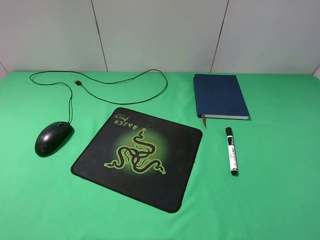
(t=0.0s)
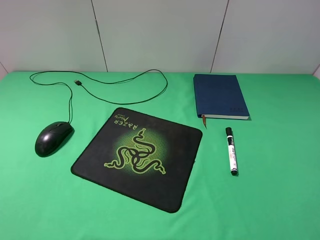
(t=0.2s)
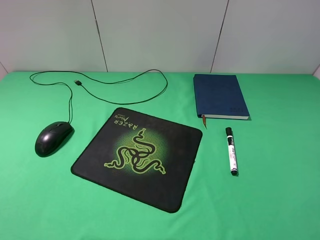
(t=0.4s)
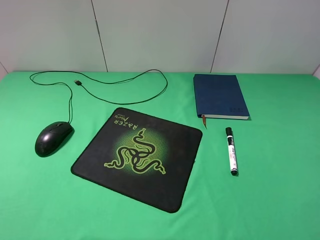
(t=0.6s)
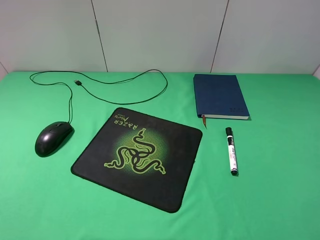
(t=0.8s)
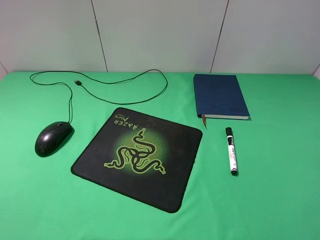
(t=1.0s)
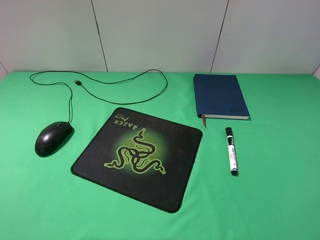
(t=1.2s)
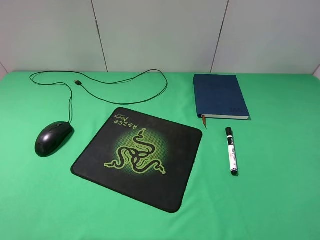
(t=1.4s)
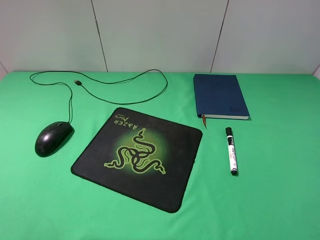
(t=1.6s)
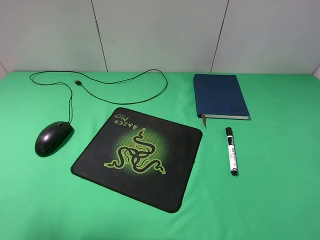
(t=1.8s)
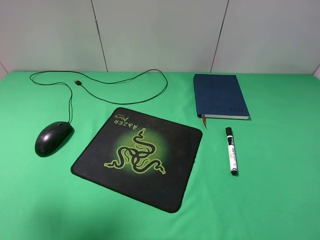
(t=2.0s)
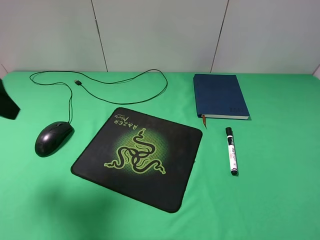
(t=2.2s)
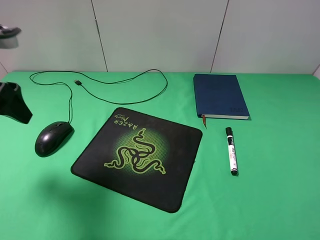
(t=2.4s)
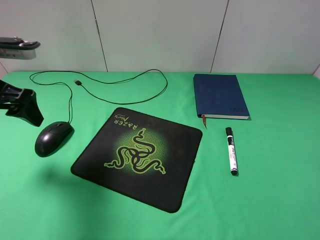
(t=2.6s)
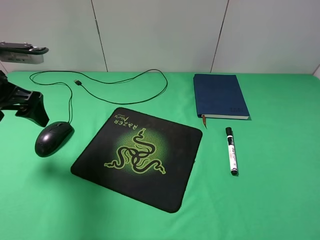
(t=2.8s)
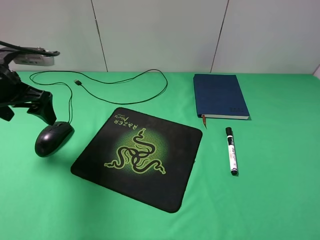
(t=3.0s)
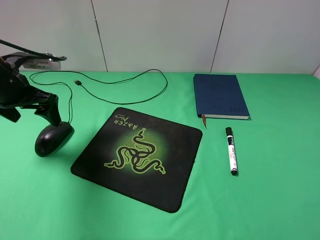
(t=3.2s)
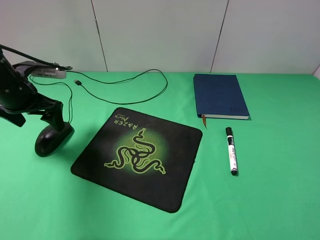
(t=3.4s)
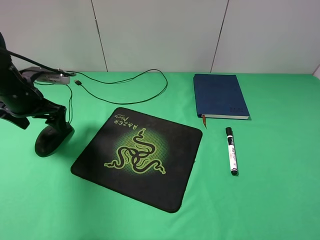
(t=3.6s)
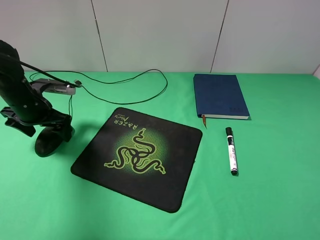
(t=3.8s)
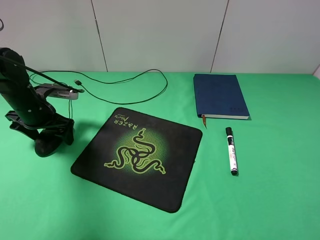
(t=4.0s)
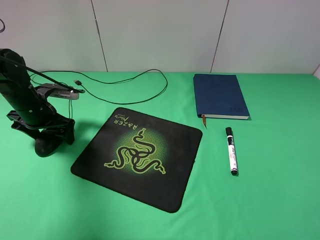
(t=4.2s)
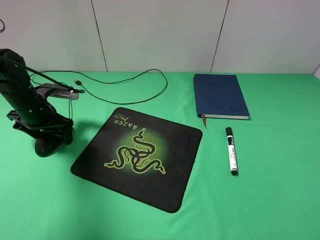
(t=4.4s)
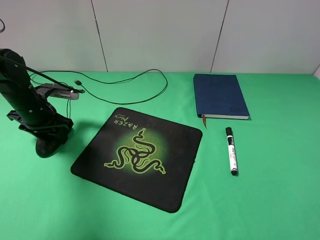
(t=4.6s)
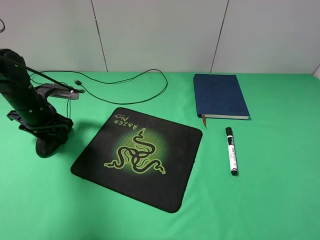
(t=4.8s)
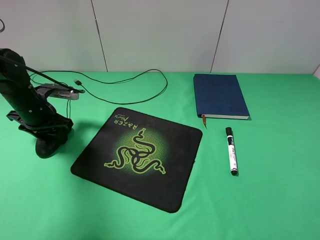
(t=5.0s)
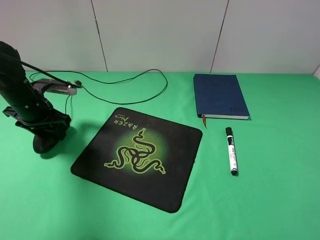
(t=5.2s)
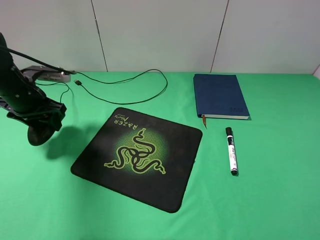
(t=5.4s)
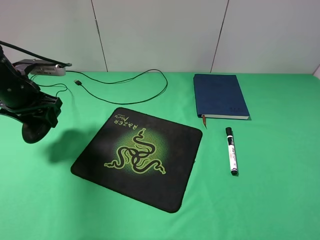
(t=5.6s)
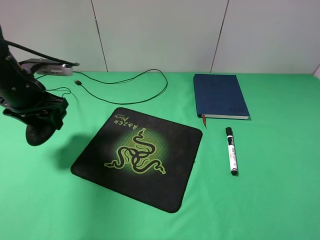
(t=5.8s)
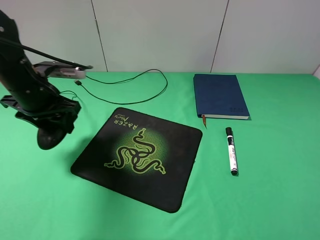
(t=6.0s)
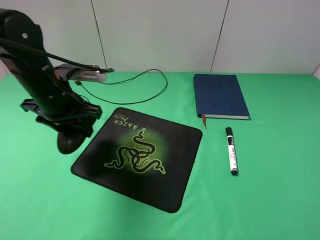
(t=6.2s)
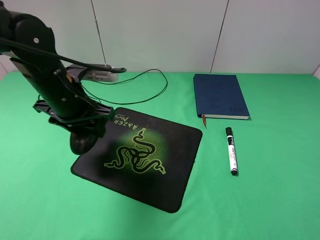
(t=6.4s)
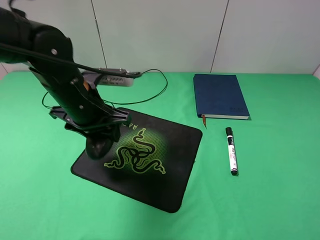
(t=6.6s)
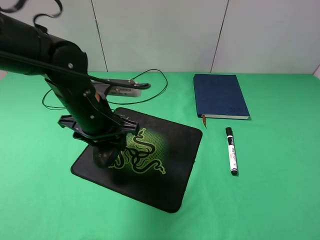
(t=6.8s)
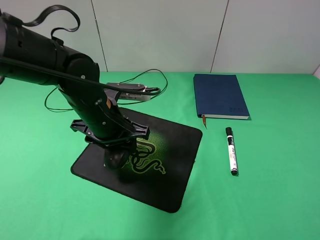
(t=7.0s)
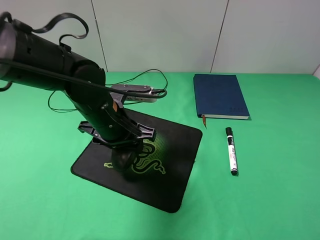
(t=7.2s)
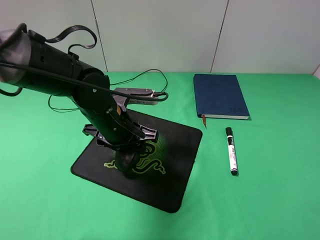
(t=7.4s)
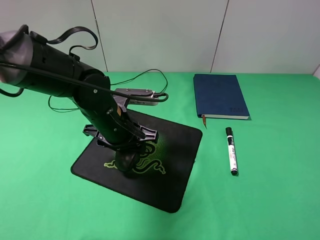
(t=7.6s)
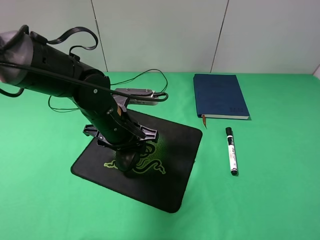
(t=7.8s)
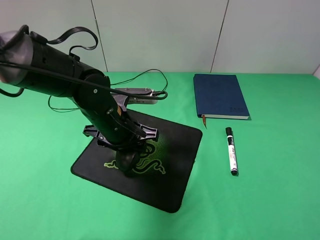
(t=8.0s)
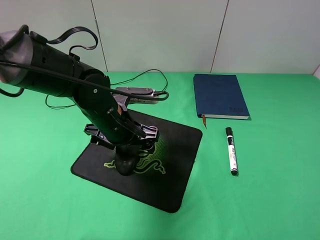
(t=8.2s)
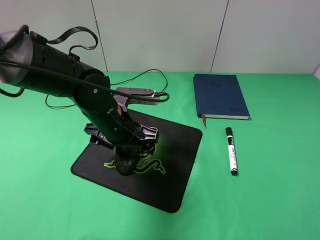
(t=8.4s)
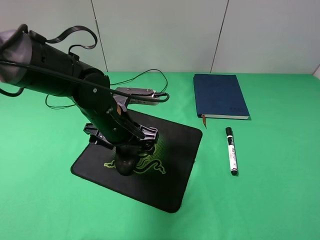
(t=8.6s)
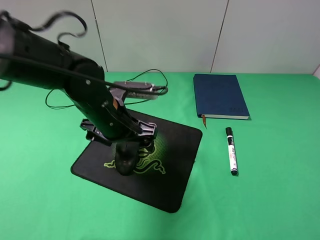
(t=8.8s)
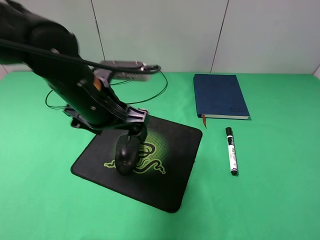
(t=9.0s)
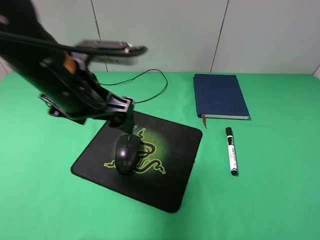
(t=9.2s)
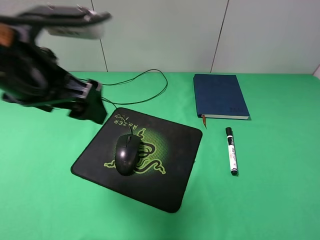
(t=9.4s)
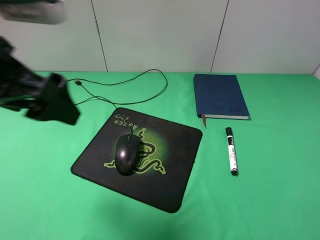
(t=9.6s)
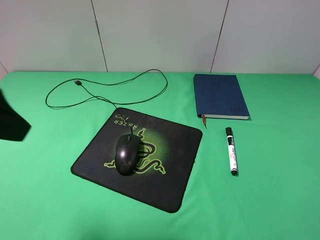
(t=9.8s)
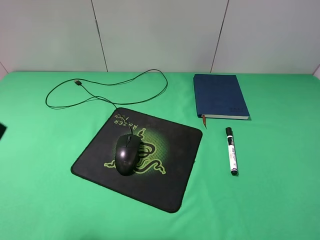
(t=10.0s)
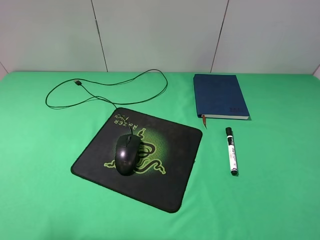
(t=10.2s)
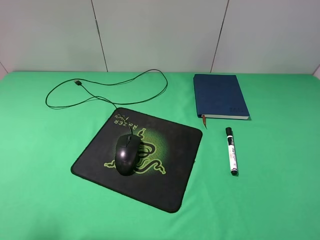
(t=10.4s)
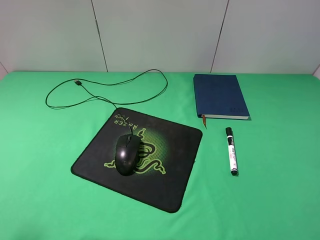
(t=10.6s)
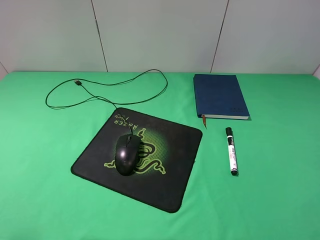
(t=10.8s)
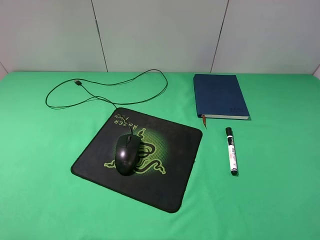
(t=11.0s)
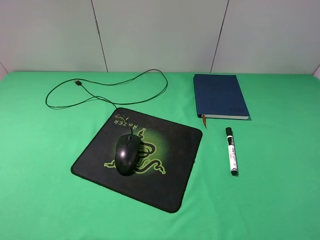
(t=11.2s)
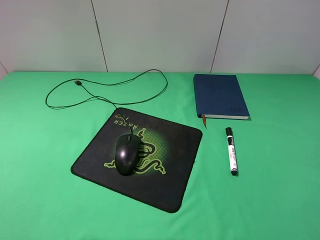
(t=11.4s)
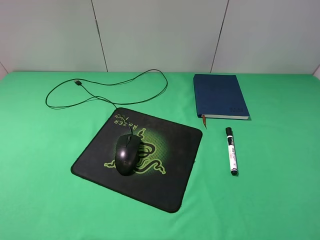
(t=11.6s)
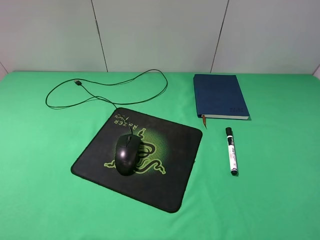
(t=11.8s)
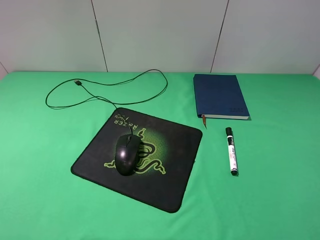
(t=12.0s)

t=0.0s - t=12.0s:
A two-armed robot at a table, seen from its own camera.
Step, t=0.0s - t=4.8s: Grasp the mouse with the left gripper.
Step, t=5.0s - t=8.6s: Place the mouse on the mouse pad with the left gripper.
t=1.6s - t=3.0s: The left gripper is displaced forward and downward by approximately 25 cm.
t=3.0s - t=4.4s: The left gripper shifts about 10 cm downward, and closes up.
t=4.4s - t=6.0s: The left gripper goes about 10 cm upward and to the right, and closes up.
t=6.0s - t=7.6s: The left gripper shifts about 15 cm to the right.
t=7.6s - t=9.0s: The left gripper goes some 10 cm upward, and opens up.
t=9.0s - t=10.4s: The left gripper is displaced to the left, backward and upward by approximately 25 cm.

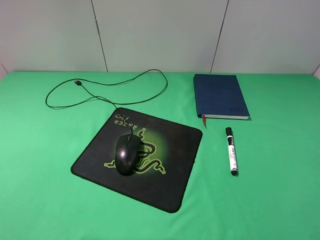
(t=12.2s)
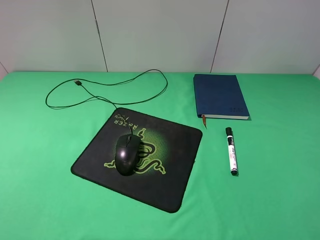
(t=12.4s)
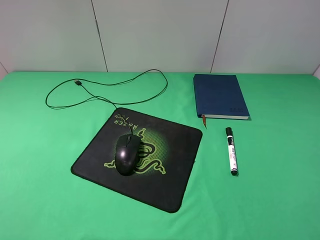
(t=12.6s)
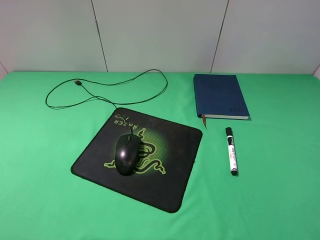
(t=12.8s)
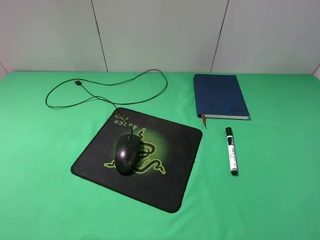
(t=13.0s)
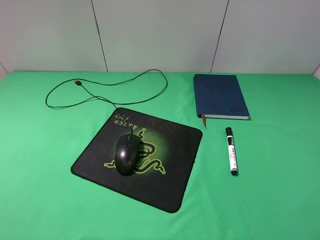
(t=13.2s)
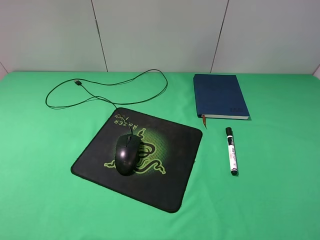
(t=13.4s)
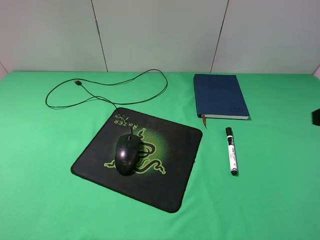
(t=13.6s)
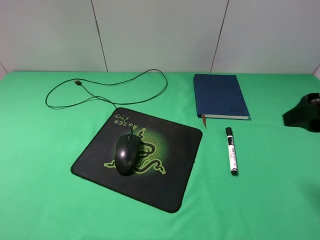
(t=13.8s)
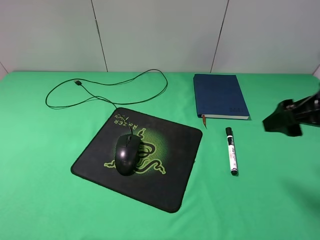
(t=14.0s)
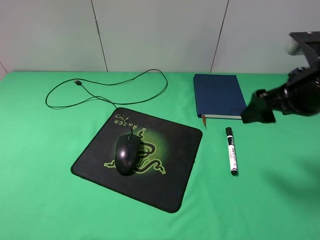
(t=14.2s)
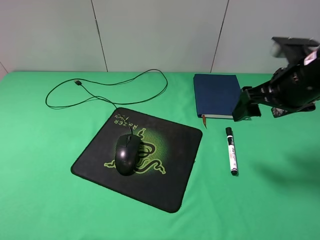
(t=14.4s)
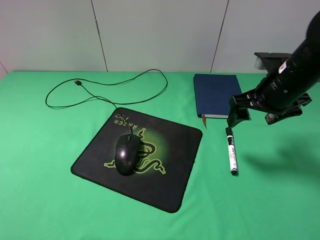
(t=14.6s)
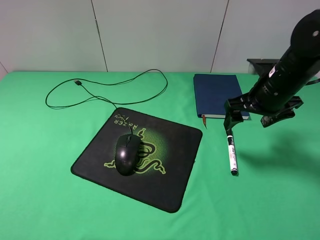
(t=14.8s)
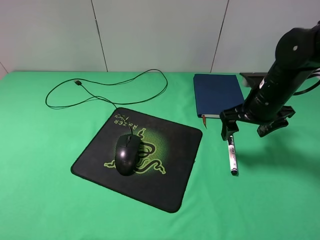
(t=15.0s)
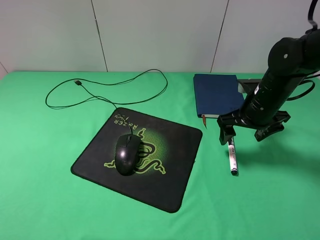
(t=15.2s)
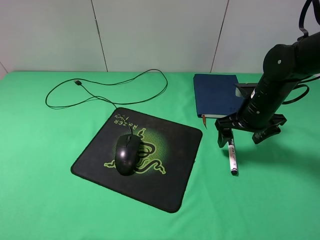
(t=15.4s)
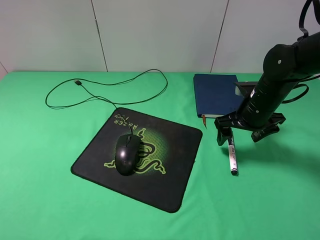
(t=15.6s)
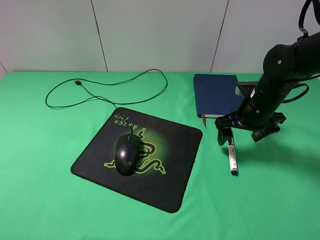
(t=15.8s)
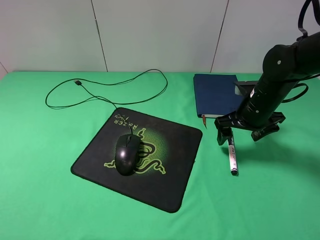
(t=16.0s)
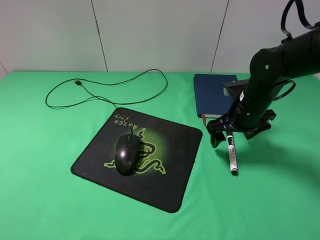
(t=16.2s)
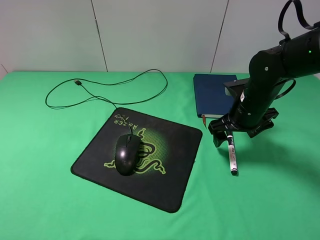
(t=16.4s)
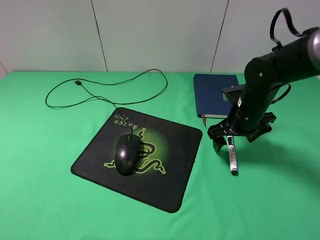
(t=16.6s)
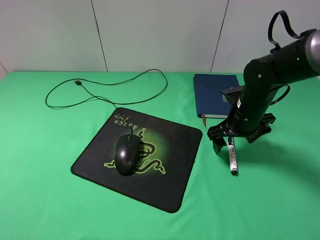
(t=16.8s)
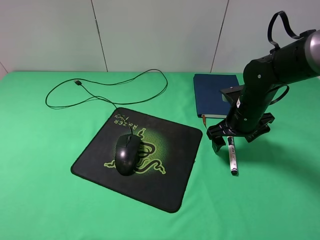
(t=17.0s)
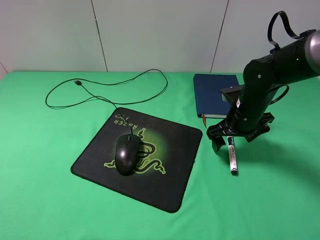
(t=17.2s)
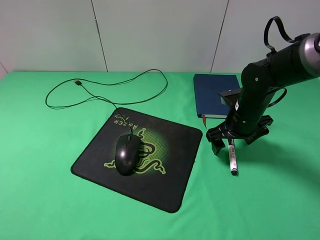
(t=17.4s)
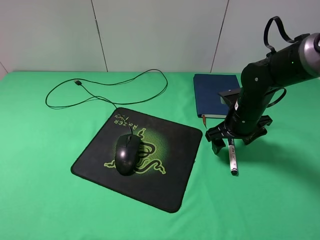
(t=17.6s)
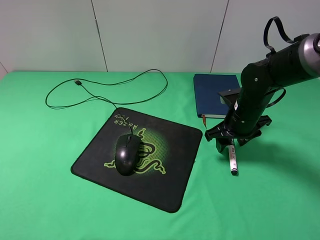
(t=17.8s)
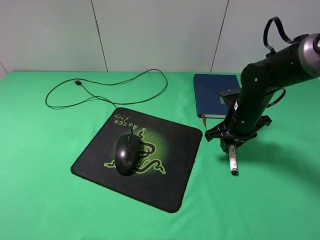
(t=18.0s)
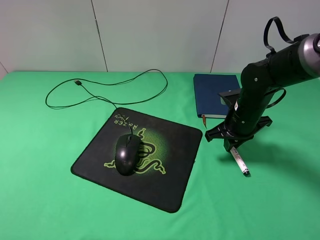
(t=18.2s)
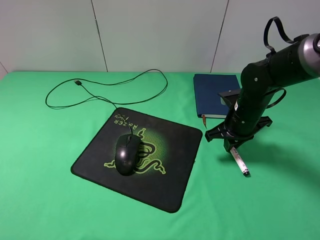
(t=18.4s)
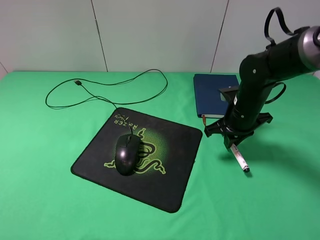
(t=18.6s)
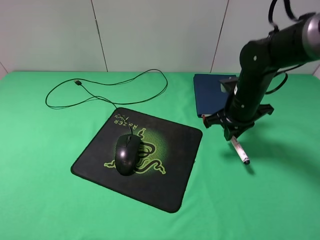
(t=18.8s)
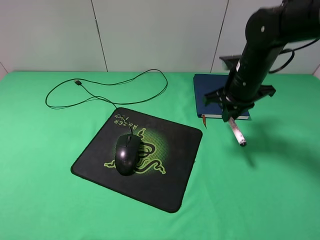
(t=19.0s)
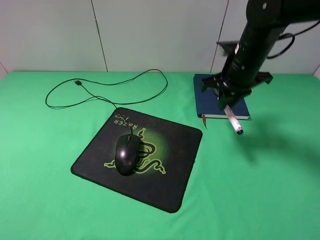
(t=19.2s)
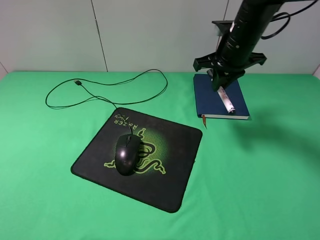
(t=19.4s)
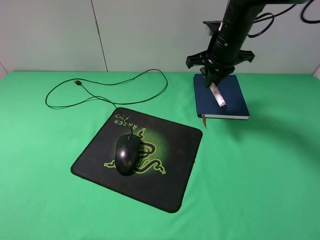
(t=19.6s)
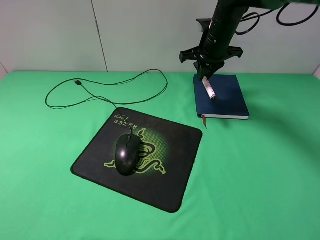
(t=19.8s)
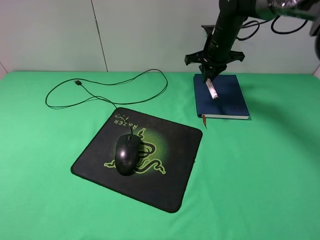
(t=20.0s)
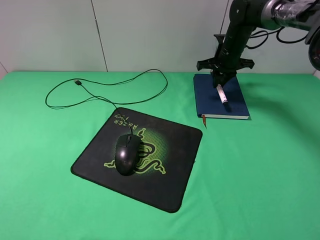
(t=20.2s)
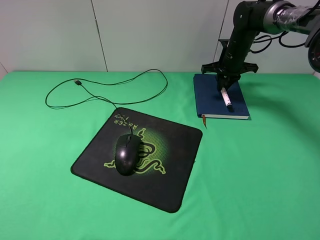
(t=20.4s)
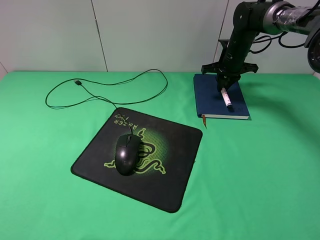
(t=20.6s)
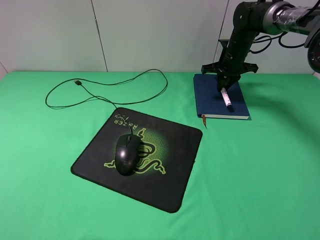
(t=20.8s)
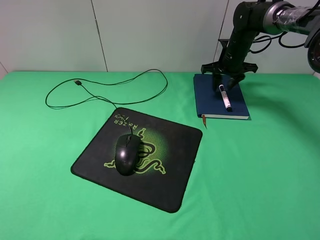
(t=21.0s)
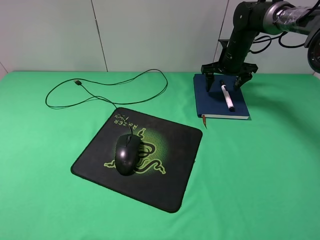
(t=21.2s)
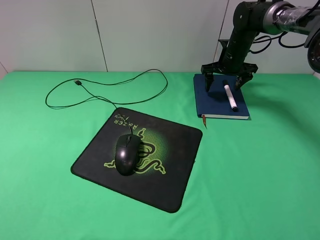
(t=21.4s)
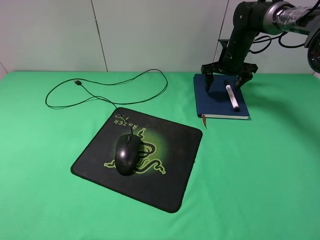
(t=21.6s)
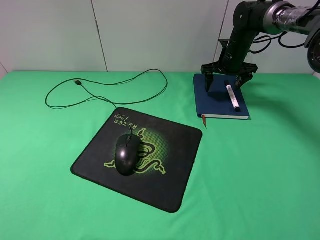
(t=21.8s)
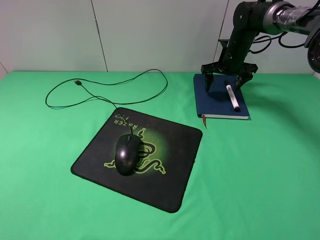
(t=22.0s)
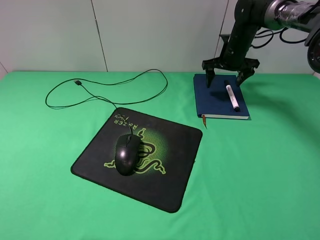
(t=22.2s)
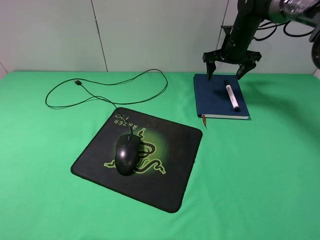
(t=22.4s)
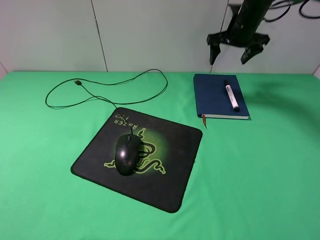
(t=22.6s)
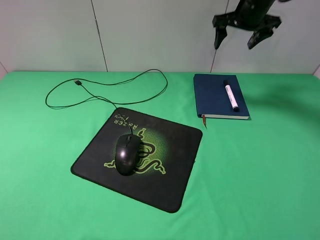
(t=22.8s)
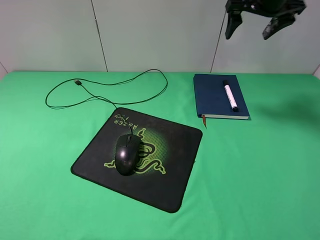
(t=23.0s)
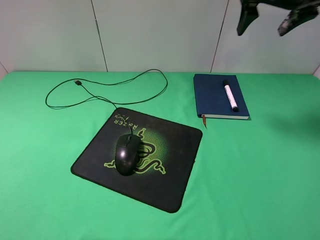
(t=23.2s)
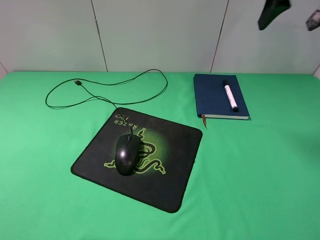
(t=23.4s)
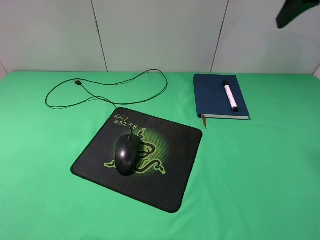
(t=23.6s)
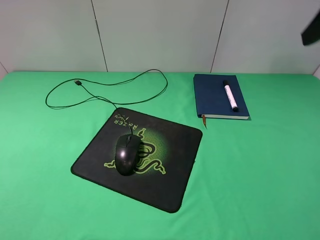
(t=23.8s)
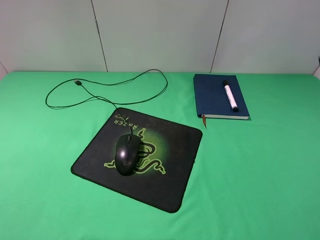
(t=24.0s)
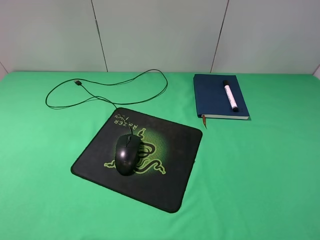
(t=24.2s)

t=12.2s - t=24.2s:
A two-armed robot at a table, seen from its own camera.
Step, t=12.2s - t=18.2s: Grasp the marker with the right gripper.
Step, t=18.4s - t=21.6s: Place the marker on the notebook with the right gripper.
t=12.2s - t=13.8s: The right gripper is displaced forward by roughly 15 cm.
t=13.8s - t=15.2s: The right gripper moves forward, downward and to the left, approximately 20 cm.
t=15.2s - t=16.6s: The grippers make only small movements.
t=16.6s - t=18.2s: The right gripper closes its fingers.
t=18.2s - t=19.8s: The right gripper shifts some 20 cm forward and upward.
t=19.8s - t=21.2s: The right gripper travels to the right, downward and forward by roughly 10 cm, and opens.
t=21.2s - t=22.6s: The right gripper shifts approximately 10 cm upward.
t=22.6s - t=24.2s: The right gripper moves backward, approximately 40 cm.
